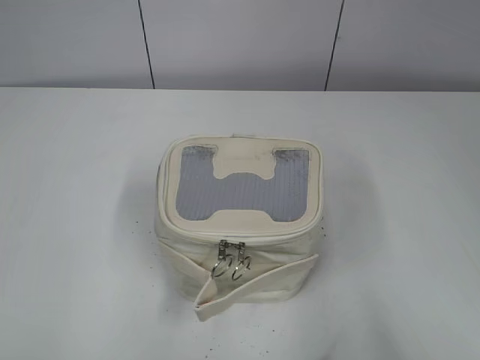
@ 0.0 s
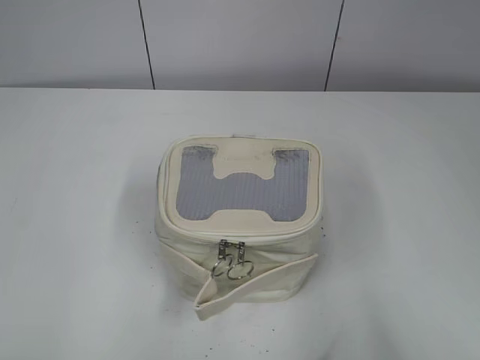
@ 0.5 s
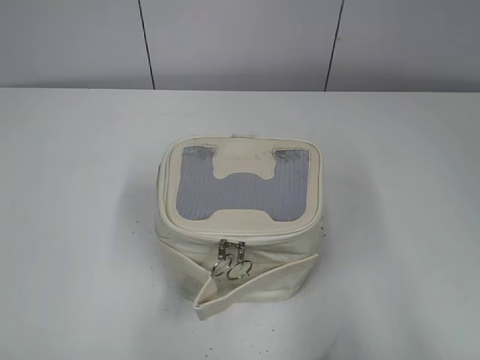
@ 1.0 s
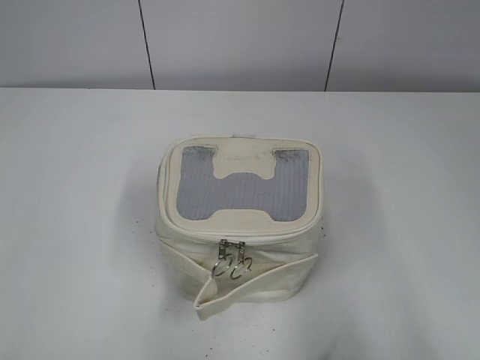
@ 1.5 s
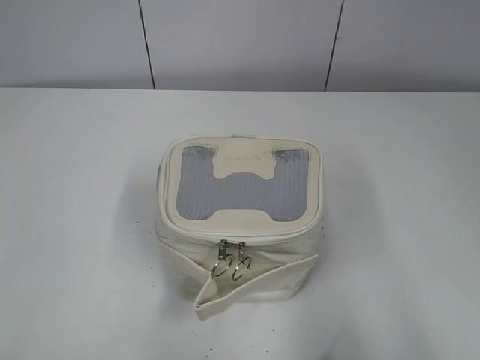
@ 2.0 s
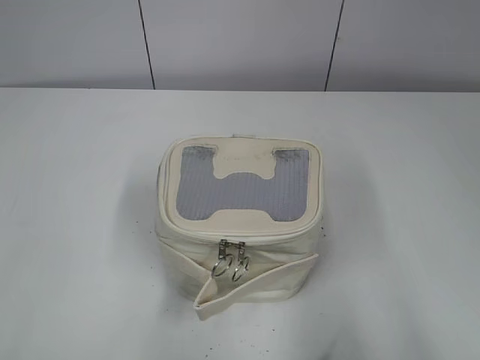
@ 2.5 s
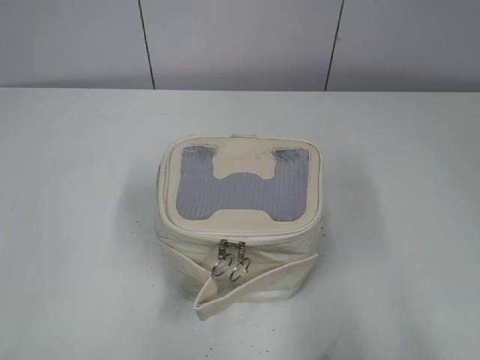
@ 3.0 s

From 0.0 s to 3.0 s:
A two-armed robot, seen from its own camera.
From 1.5 s to 3.0 s: Both grippers stay put.
